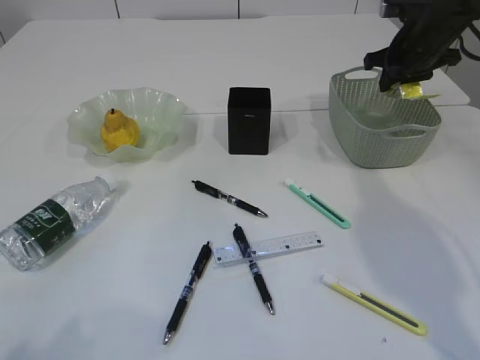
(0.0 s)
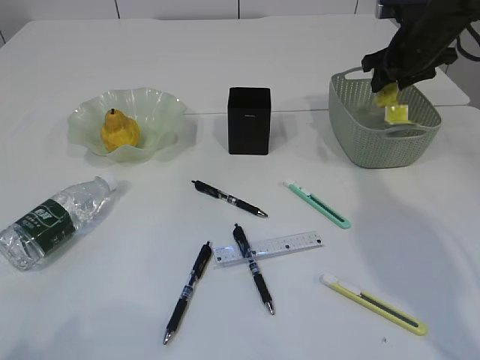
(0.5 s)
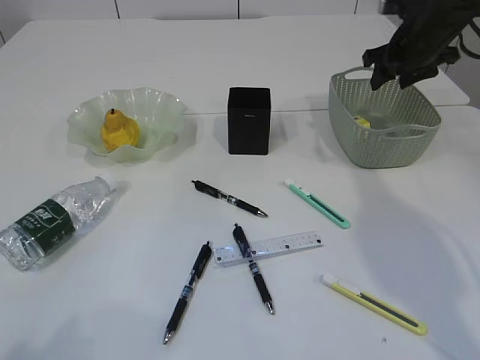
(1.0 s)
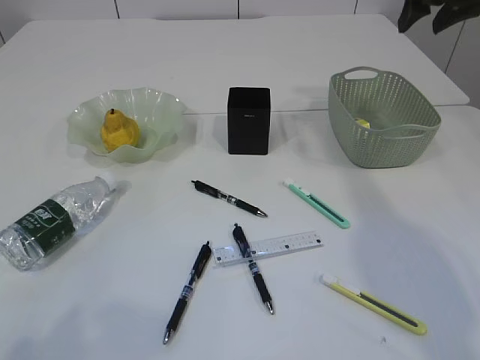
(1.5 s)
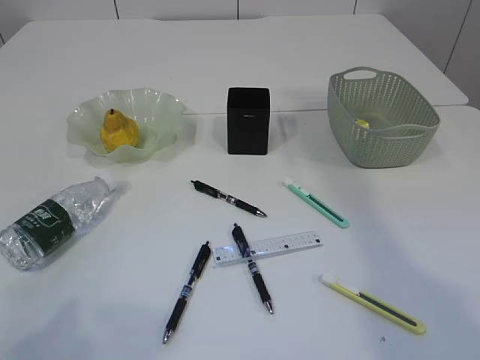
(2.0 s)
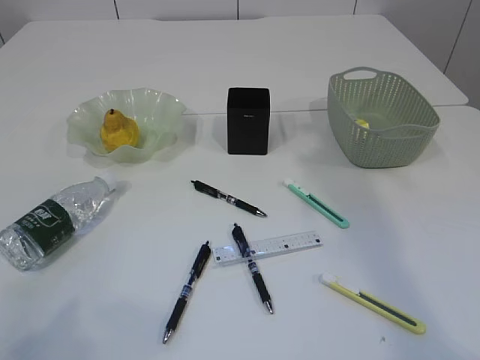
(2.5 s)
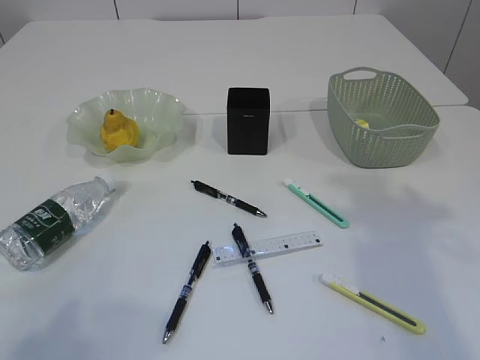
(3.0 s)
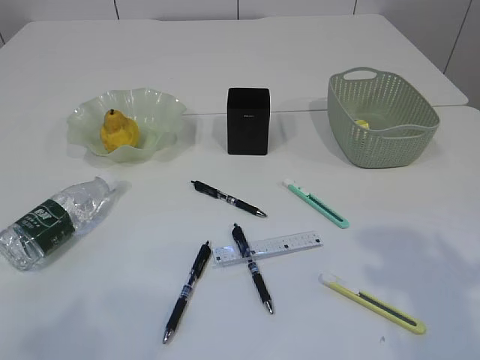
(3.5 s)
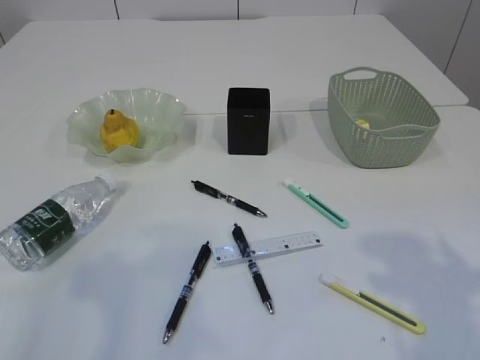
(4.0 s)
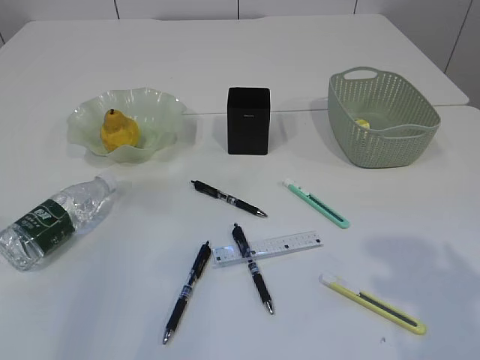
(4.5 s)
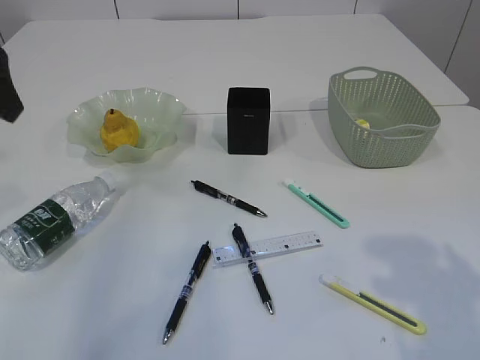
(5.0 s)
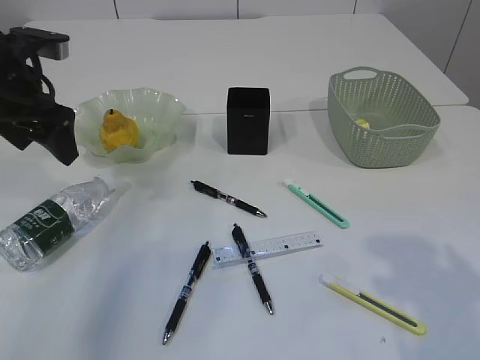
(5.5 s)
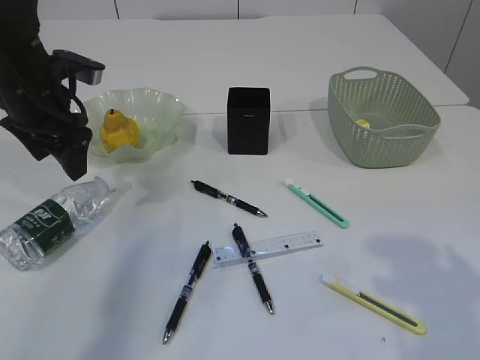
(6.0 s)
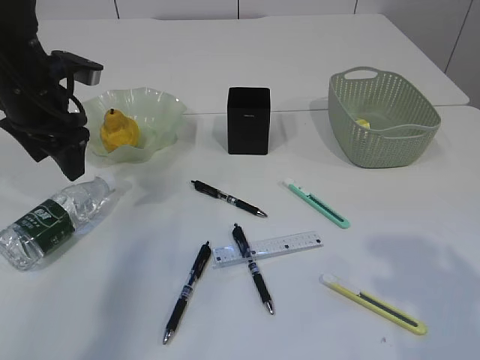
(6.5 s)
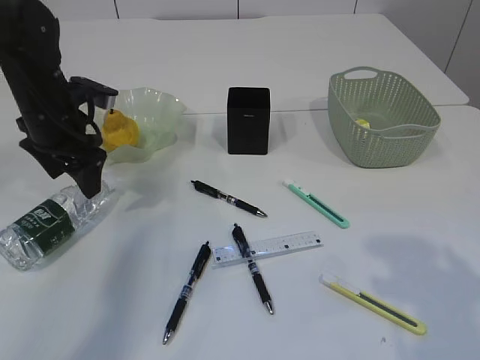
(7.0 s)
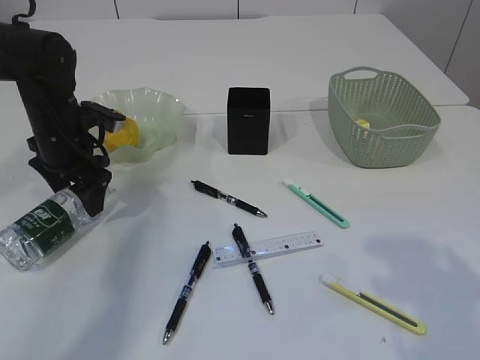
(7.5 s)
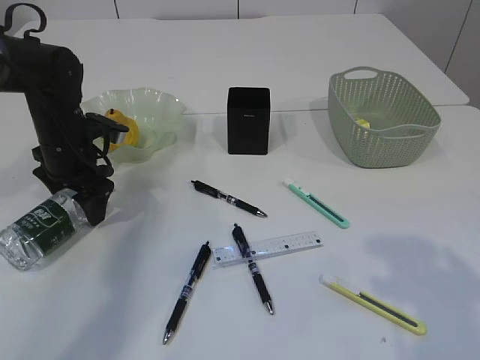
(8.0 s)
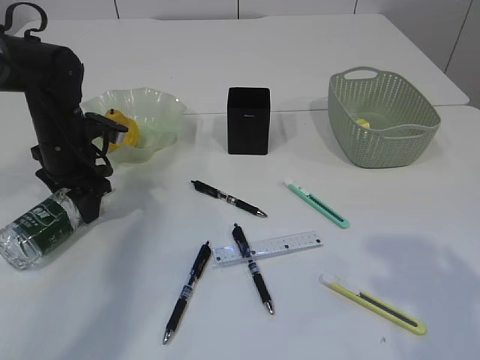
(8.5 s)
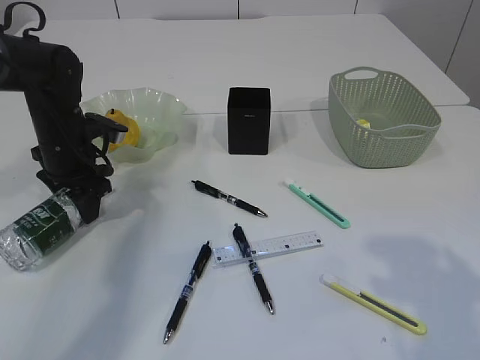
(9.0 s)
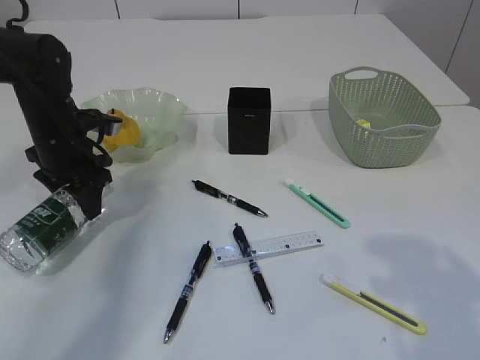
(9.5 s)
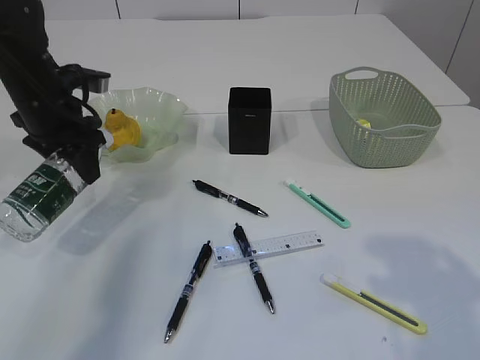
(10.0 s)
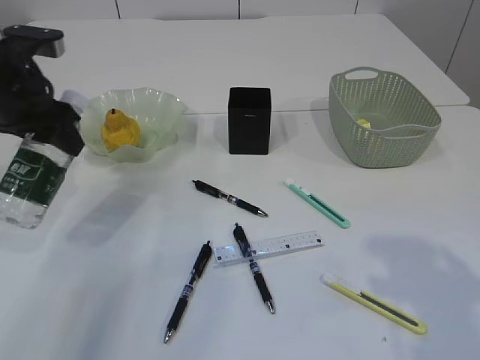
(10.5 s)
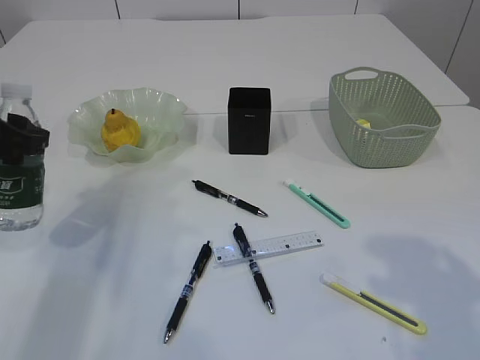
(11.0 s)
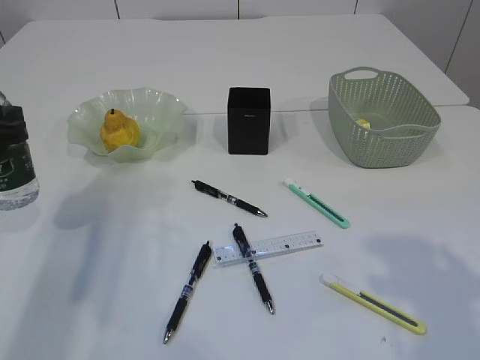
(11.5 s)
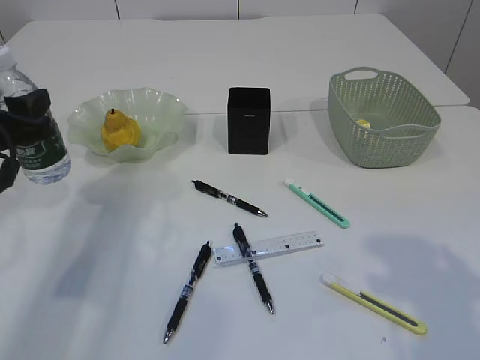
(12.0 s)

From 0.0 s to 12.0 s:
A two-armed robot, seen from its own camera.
Step, from 1.5 s to 10.0 s: Pick up the bottle with the left arm.
From 0.0 s to 2.0 s: The left gripper opens; the right gripper shifts about 30 cm upward and backward, and opens up.
From 4.0 s to 6.0 s: The left gripper shifts about 30 cm forward.
From 6.0 s to 8.0 s: The left gripper shifts roughly 10 cm downward.
From 8.0 s to 10.0 s: The left gripper heads upward, covering approximately 10 cm, and closes its fingers.
From 10.0 s to 12.0 s: The left gripper is displaced backward by roughly 10 cm.

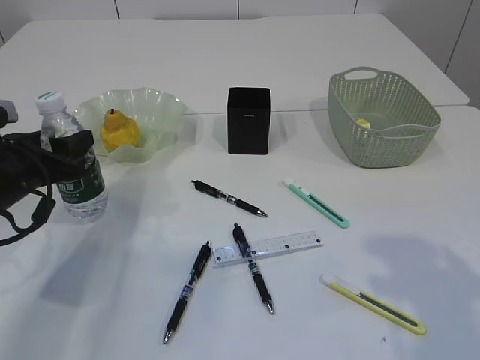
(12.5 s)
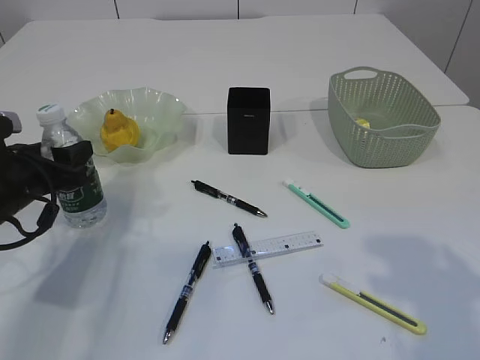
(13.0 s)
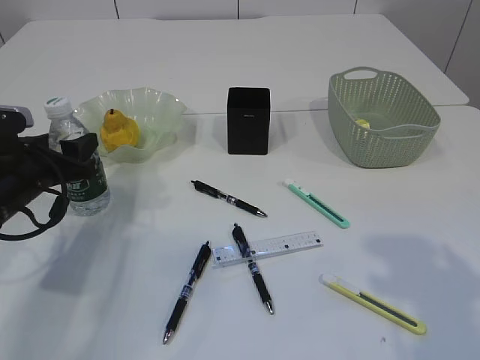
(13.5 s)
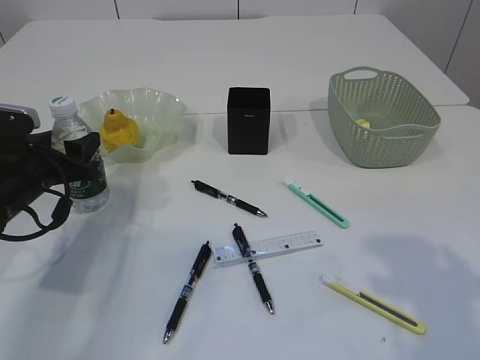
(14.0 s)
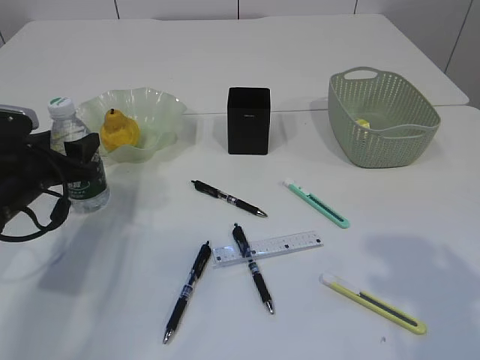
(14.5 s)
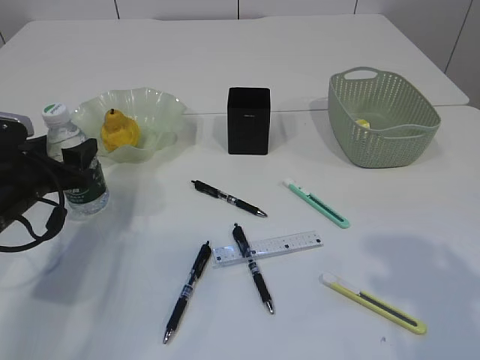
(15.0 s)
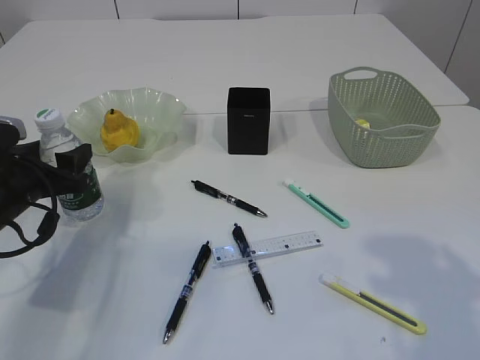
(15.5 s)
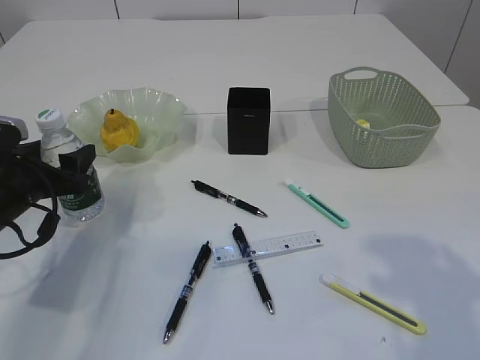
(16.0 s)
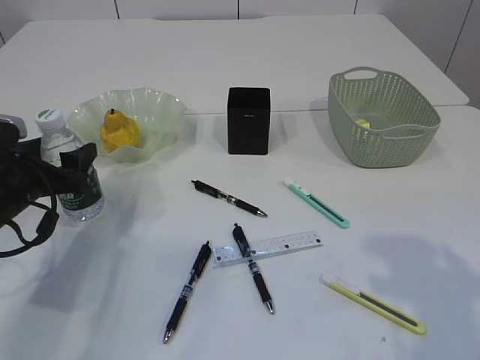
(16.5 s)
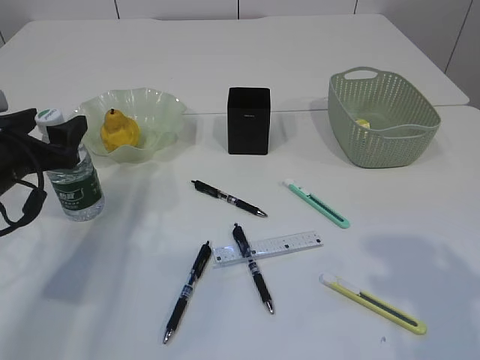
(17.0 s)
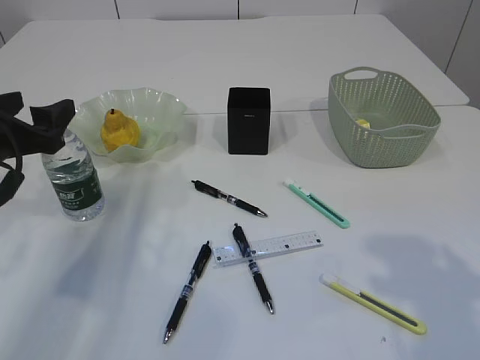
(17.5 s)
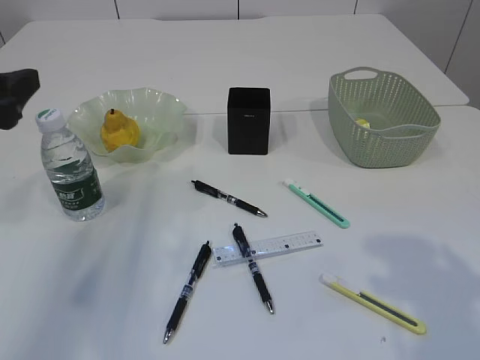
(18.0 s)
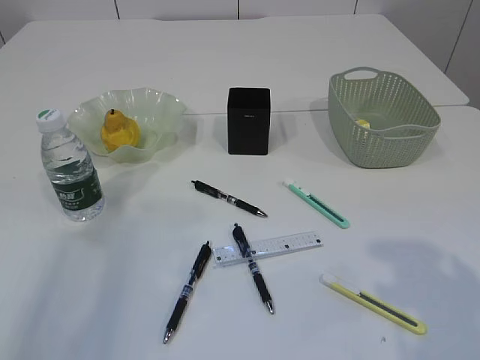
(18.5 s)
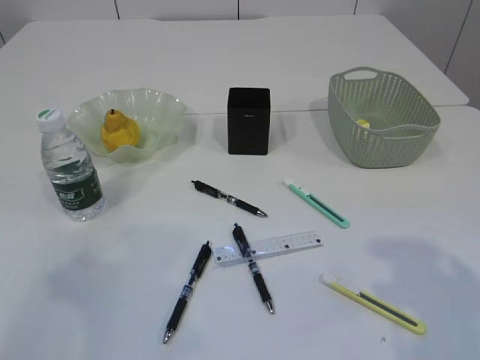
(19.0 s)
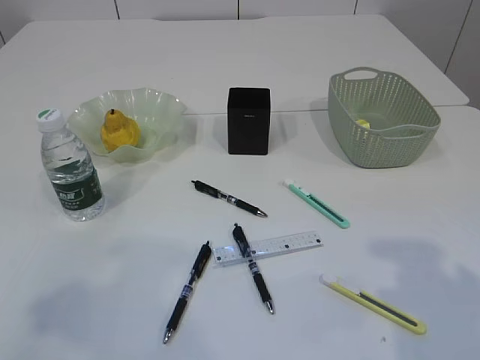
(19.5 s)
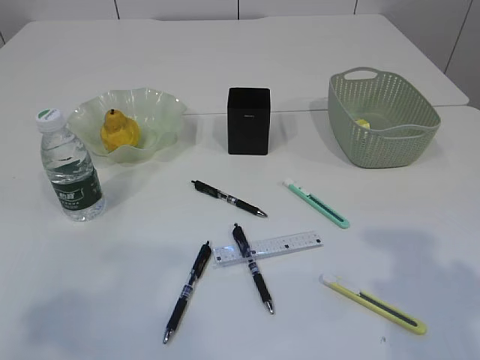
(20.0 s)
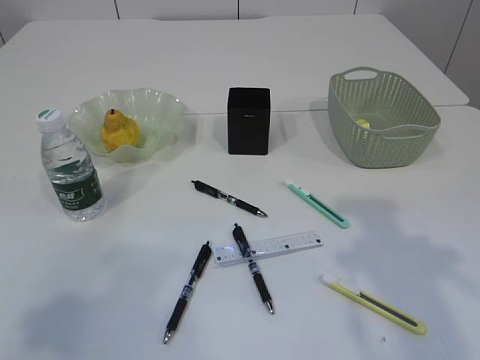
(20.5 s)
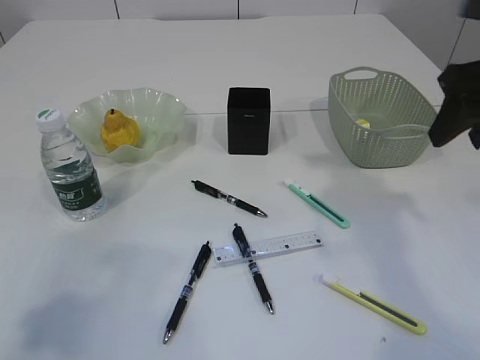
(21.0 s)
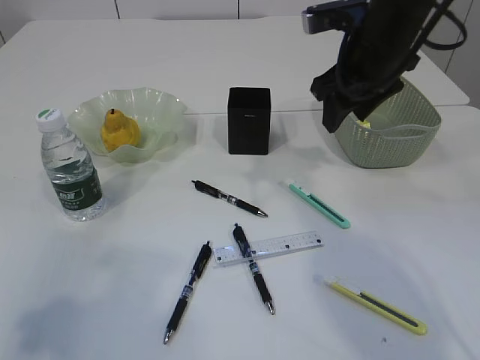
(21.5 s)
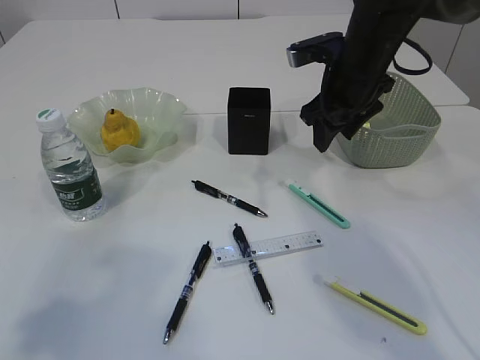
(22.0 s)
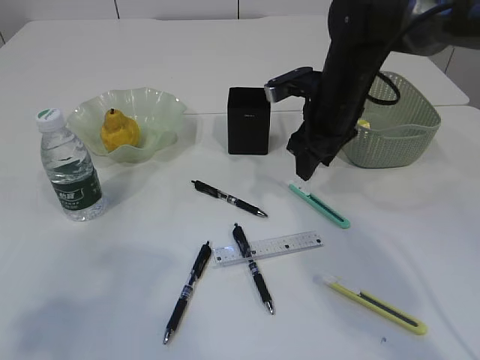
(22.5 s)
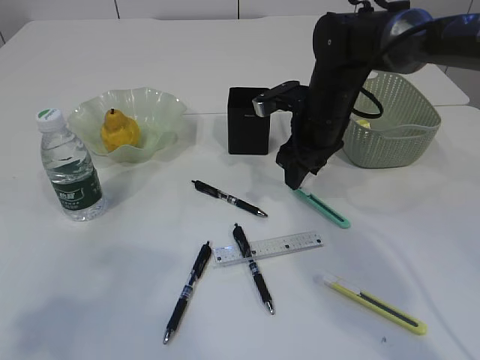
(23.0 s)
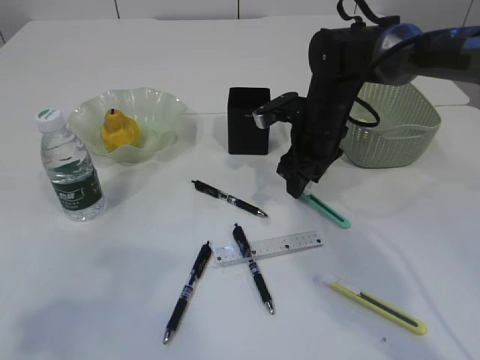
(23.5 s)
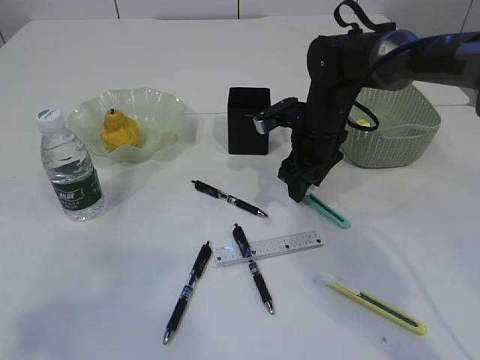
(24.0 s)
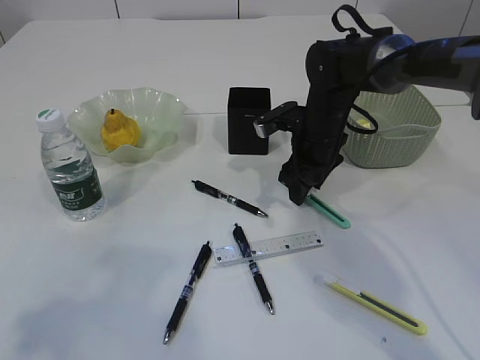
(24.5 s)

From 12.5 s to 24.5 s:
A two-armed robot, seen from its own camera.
Step, from 12.5 s to 17.0 s: Place the bottle.
From 12.5 s to 14.5 s: The grippers make only small movements.
From 14.5 s to 16.5 s: The left gripper opens up.
From 16.5 s to 18.5 s: The left gripper goes about 20 cm upward and backward.
From 20.5 s to 22.5 s: The right gripper moves forward, to the left and downward, about 30 cm.
From 22.5 s to 24.5 s: The right gripper is displaced downward by approximately 5 cm.

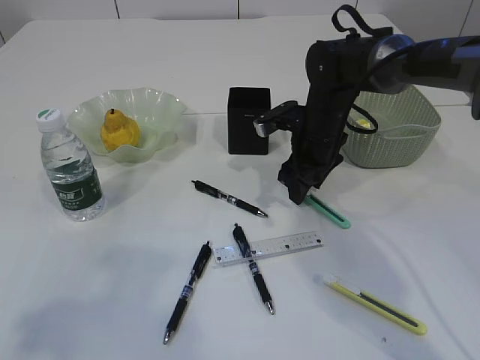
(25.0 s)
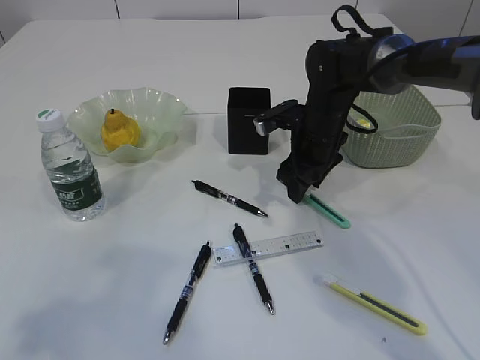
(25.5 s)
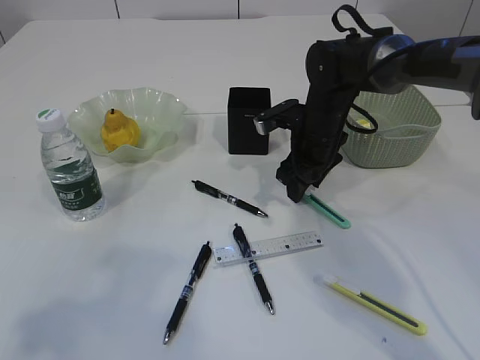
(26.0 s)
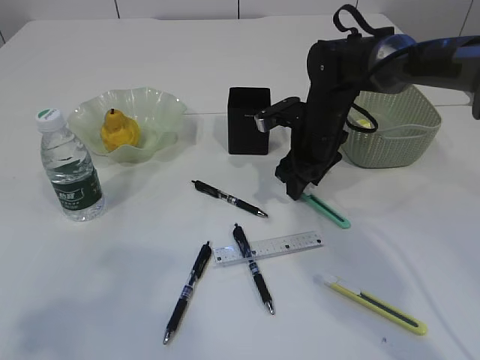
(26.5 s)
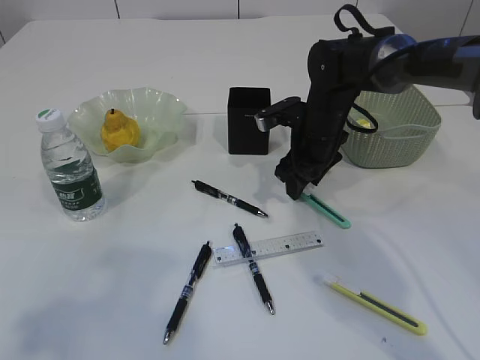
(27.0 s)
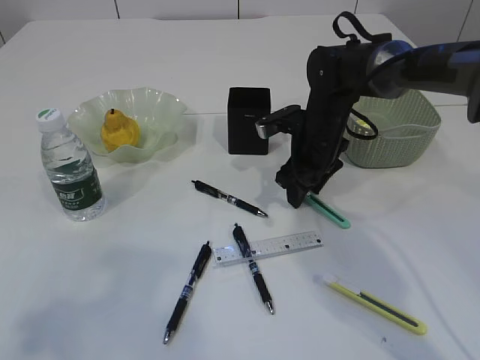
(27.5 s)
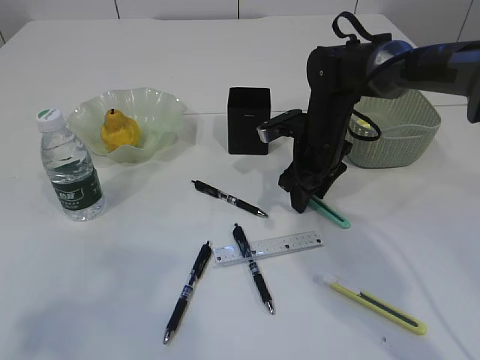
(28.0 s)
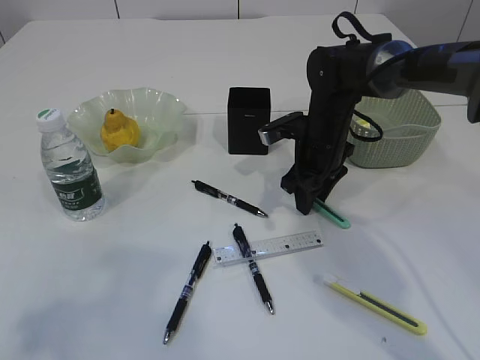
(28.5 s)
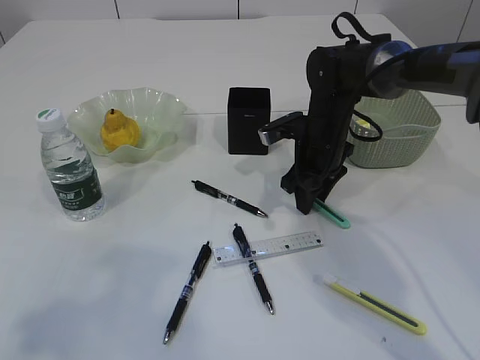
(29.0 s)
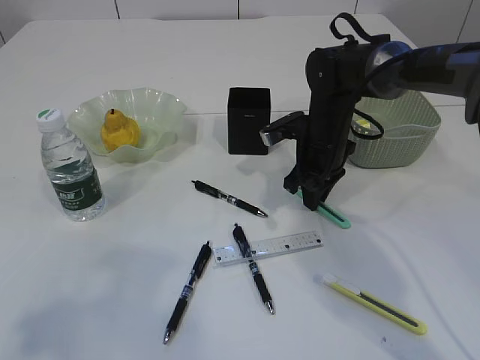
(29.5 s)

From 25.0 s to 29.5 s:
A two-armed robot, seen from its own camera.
From 25.0 s to 27.0 s: The two grippers keep their place.
From 27.0 s to 29.5 s: The right gripper closes.
